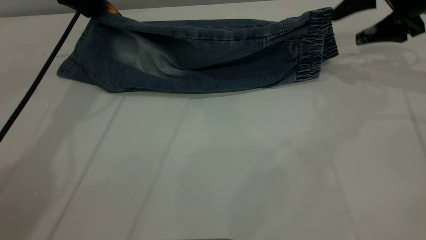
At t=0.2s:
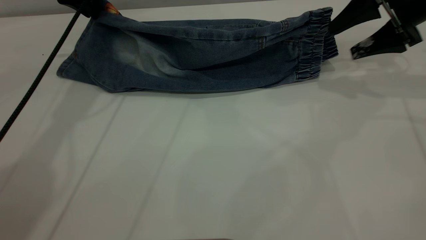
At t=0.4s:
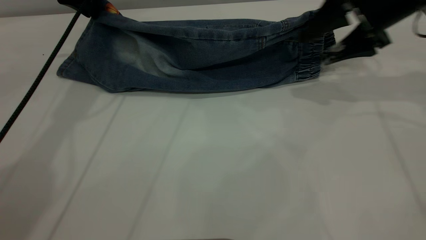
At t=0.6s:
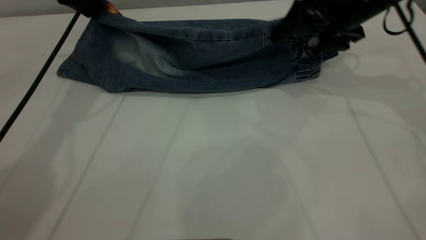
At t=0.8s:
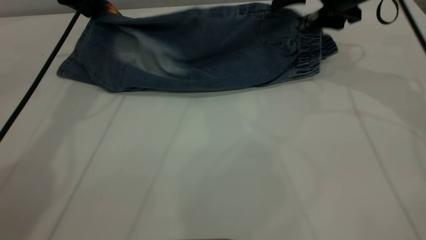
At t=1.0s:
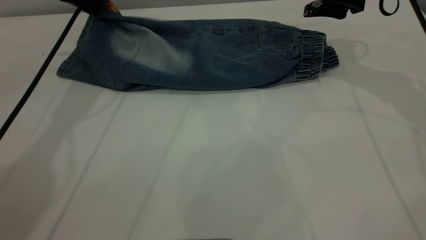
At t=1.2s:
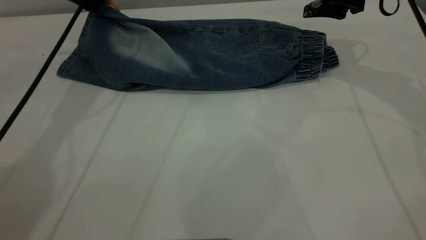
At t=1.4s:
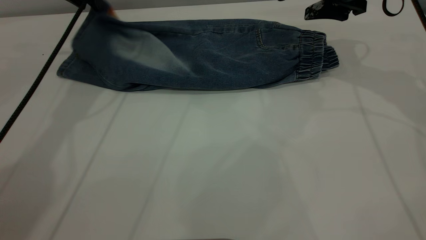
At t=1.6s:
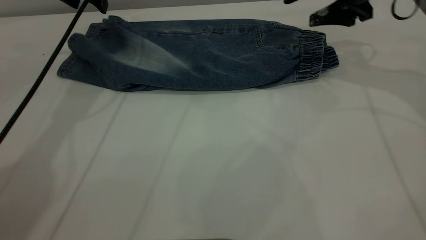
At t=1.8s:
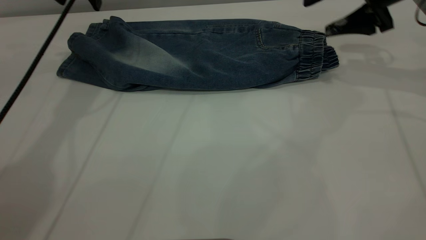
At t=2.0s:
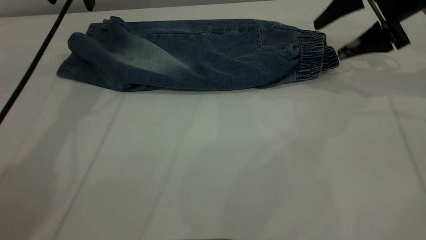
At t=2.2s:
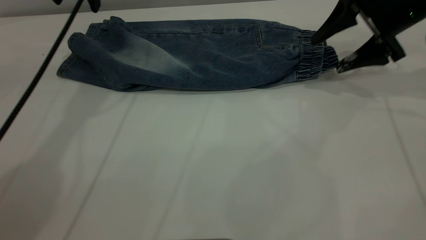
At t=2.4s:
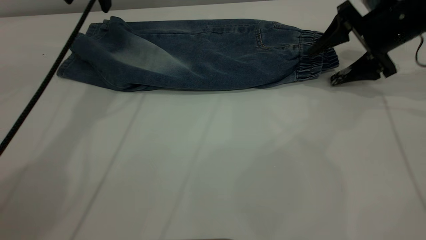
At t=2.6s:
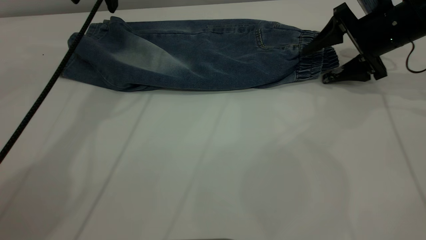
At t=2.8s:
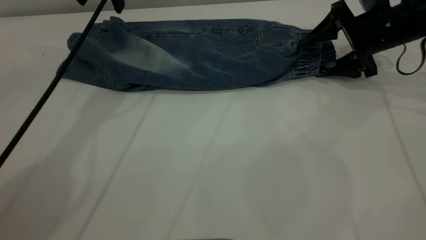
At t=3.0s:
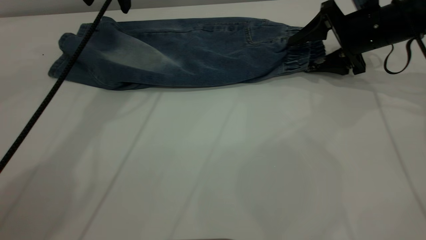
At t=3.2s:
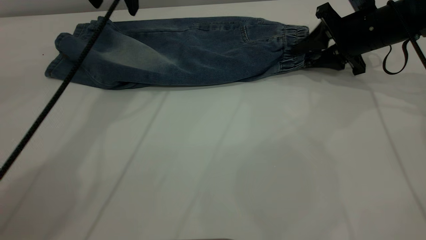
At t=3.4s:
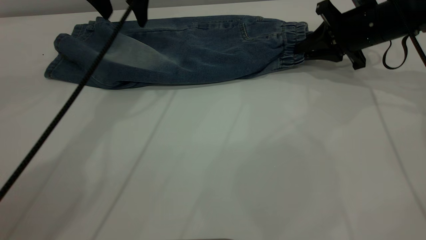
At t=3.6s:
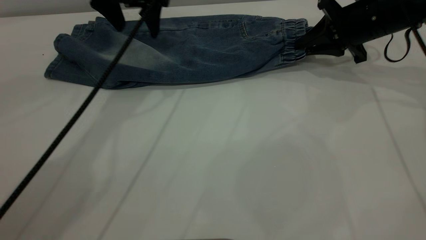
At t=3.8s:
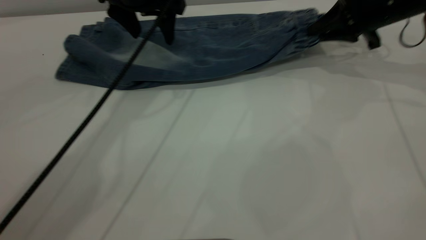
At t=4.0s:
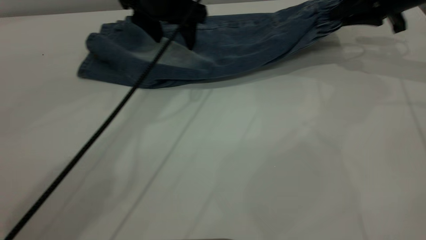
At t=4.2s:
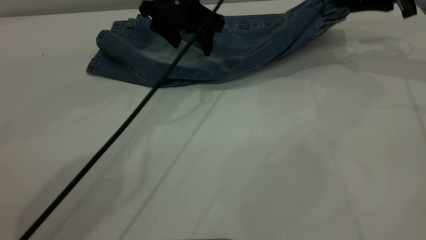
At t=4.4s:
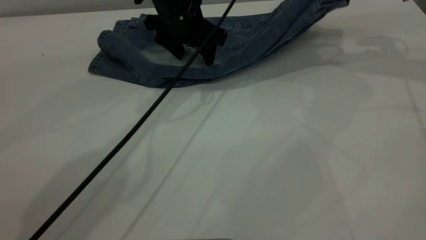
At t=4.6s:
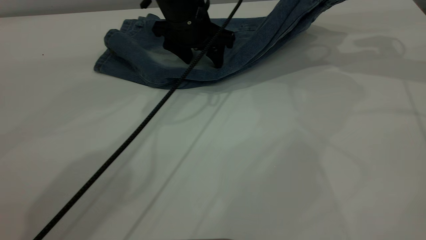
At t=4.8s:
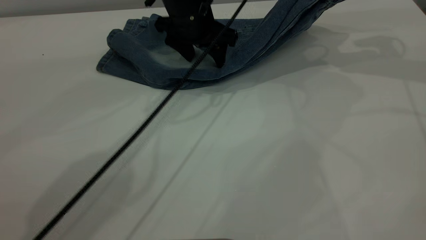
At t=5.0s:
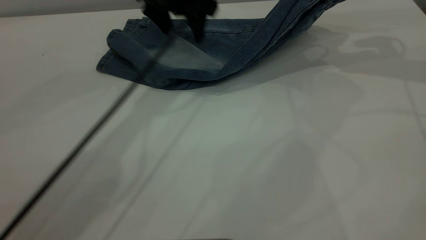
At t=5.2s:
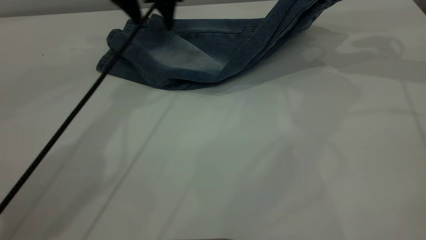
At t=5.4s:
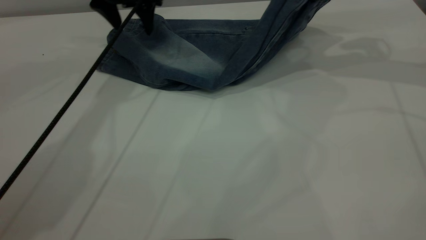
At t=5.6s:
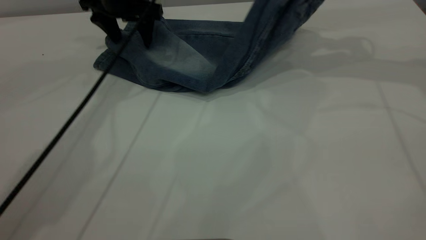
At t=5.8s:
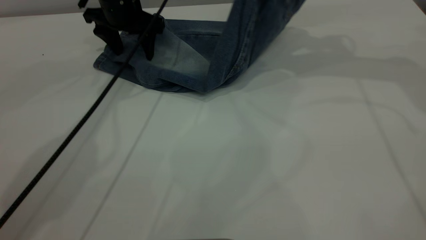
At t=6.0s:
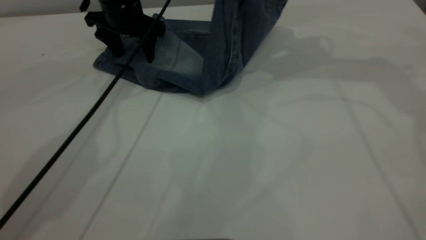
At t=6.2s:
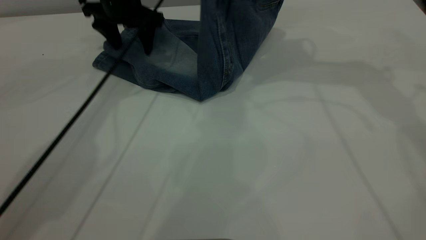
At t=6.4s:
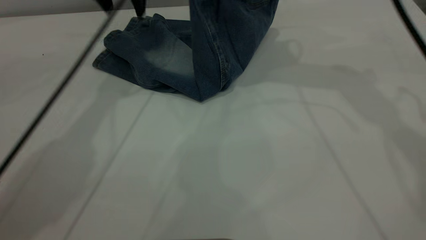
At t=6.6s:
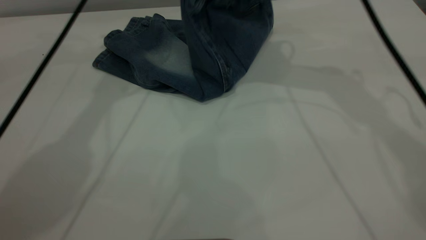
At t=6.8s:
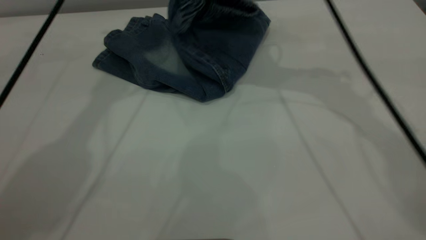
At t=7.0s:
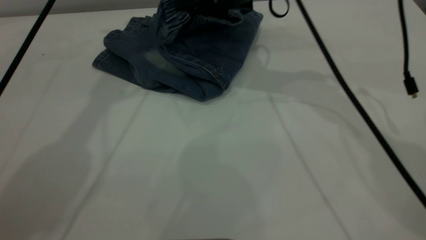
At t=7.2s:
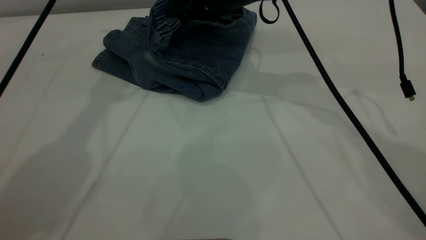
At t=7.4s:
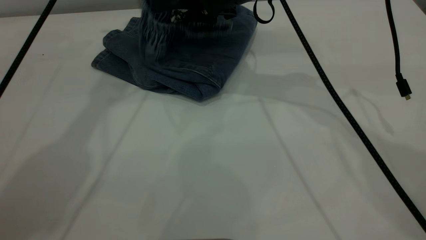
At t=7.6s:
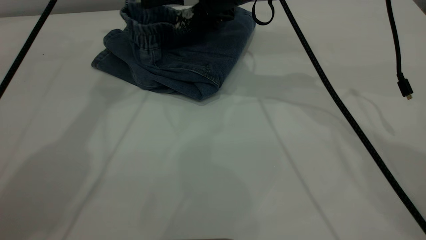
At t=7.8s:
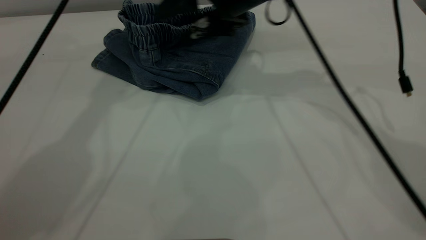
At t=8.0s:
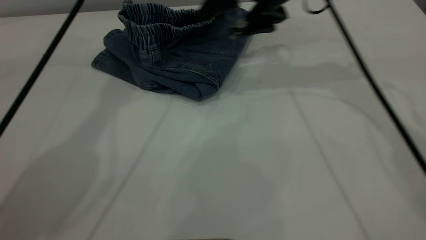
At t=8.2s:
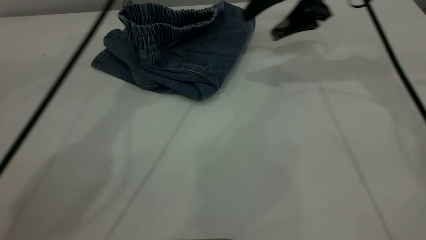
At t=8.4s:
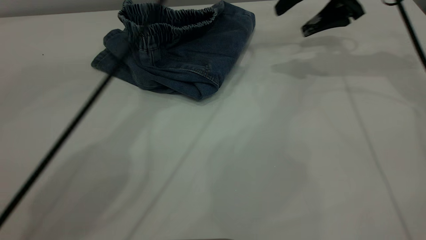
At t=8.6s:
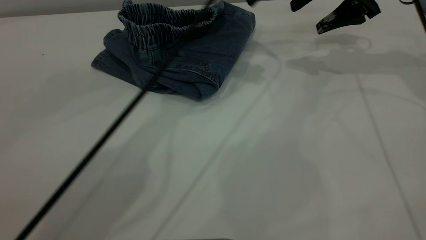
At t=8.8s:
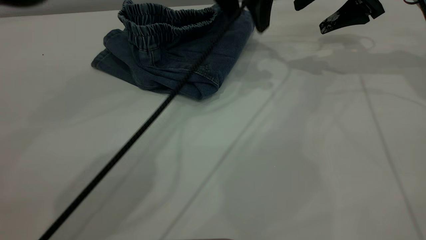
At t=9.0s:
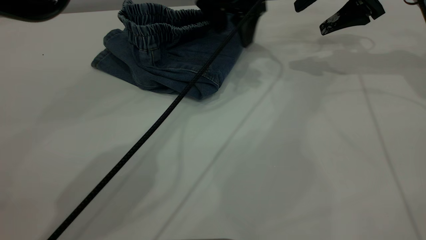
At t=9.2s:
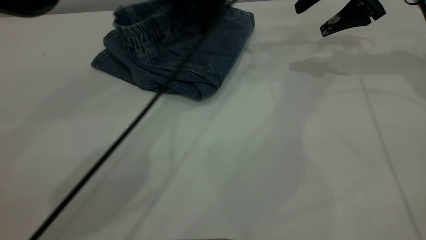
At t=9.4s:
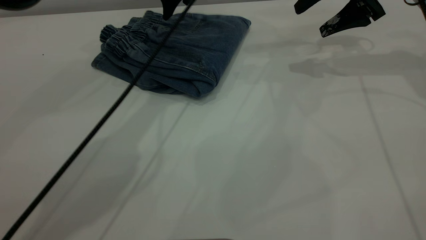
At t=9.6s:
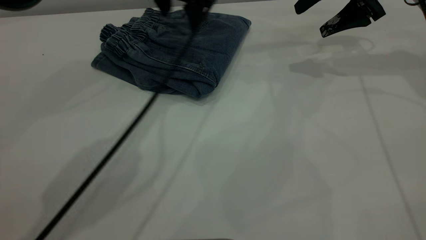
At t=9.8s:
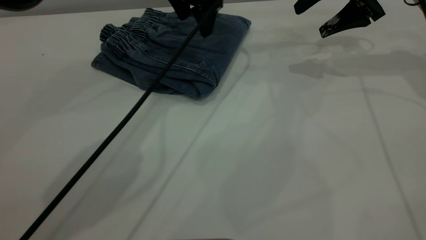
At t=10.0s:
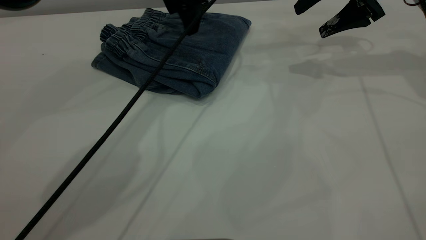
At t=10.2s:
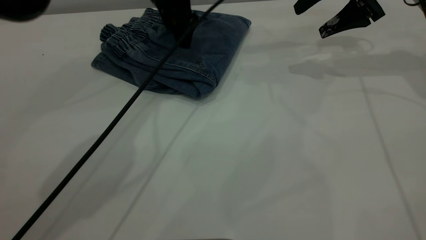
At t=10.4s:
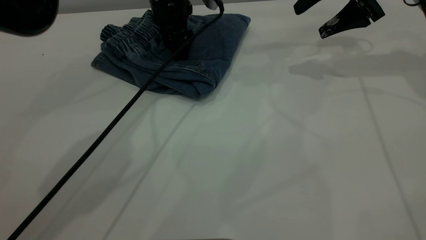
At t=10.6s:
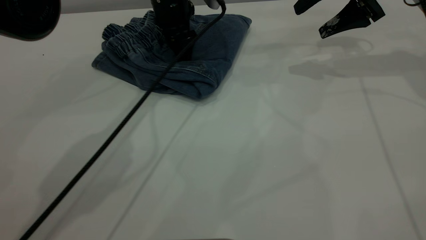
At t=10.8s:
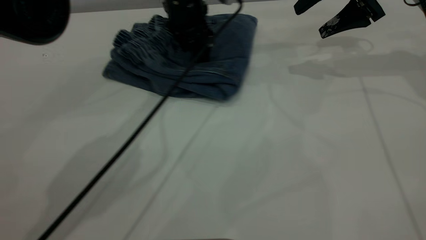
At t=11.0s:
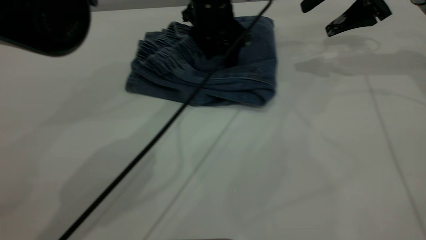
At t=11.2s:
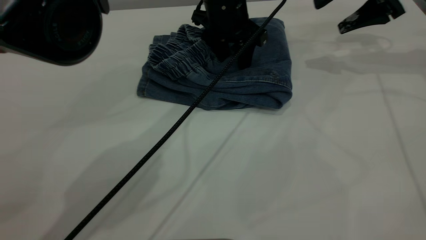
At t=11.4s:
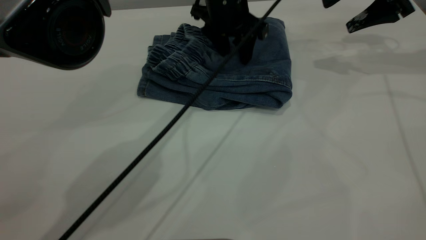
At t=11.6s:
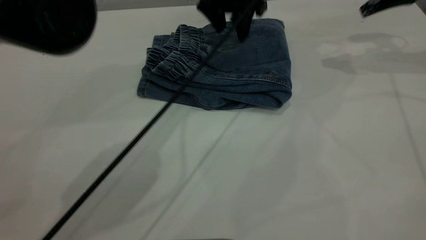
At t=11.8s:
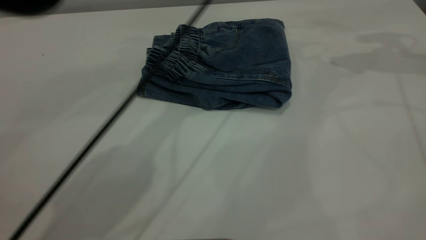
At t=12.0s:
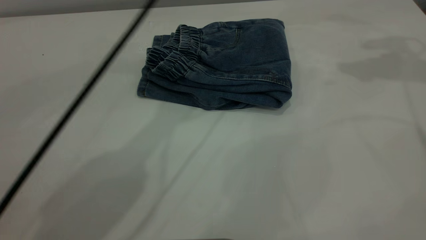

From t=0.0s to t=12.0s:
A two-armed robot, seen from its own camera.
Step, from t=1.6s to t=7.8s: Fold your pants from right to left.
From t=0.0s to t=1.6s: The left gripper opens up. Meanwhile the right gripper heads to the left, covering approximately 5 cm.
From t=1.6s to t=3.0s: The right gripper moves downward, about 10 cm; the left gripper travels to the right by approximately 5 cm.
From t=3.0s to t=4.4s: The left gripper goes approximately 15 cm downward and to the right. The right gripper shifts roughly 15 cm upward and to the right, and closes its fingers.
From t=4.4s to t=6.0s: The right gripper shifts about 15 cm to the left and upward. Meanwhile the left gripper is displaced to the left and forward by about 10 cm.
From t=6.0s to t=7.6s: The right gripper moves to the left and downward, some 15 cm, and opens its fingers. Meanwhile the left gripper moves upward, some 20 cm.
From t=7.6s to t=9.0s: The left gripper shifts roughly 20 cm to the right and downward; the right gripper shifts some 20 cm to the right.
From t=9.0s to t=10.4s: The left gripper goes about 10 cm to the left and downward.
From t=10.4s to t=12.0s: Both grippers move upward, approximately 20 cm.

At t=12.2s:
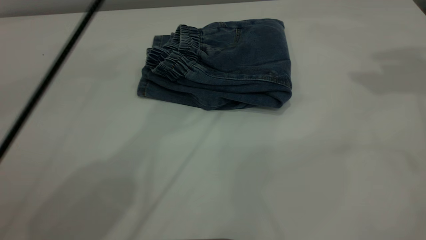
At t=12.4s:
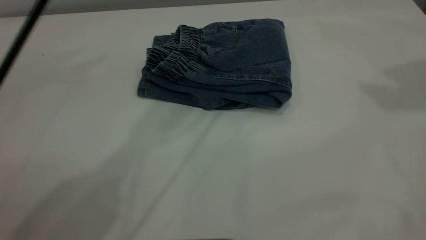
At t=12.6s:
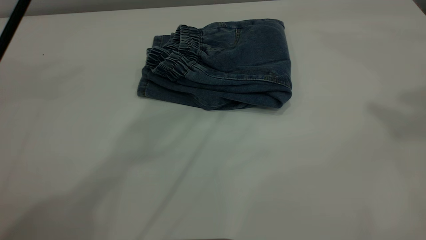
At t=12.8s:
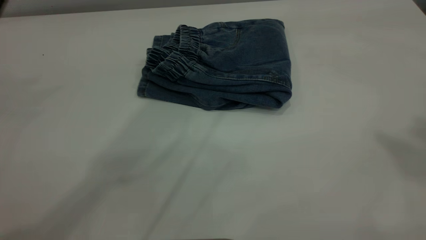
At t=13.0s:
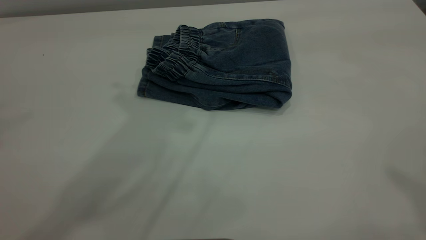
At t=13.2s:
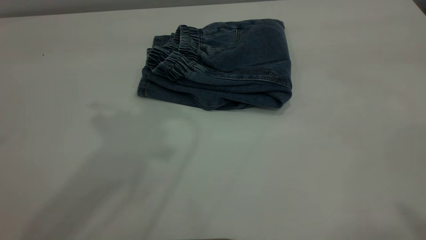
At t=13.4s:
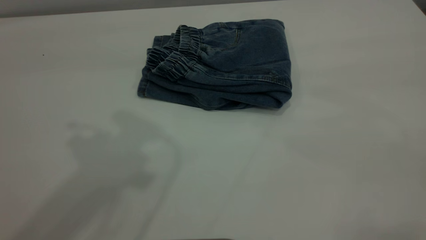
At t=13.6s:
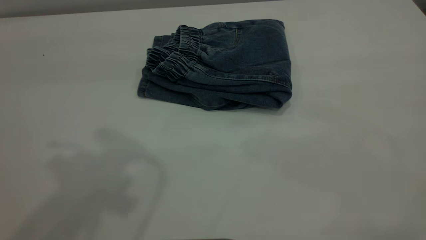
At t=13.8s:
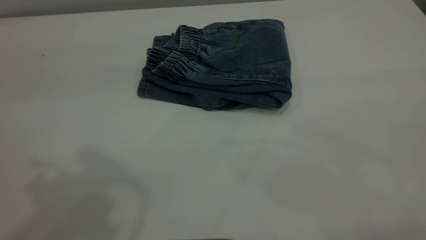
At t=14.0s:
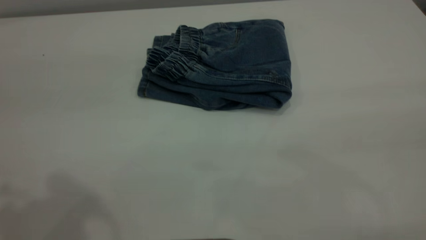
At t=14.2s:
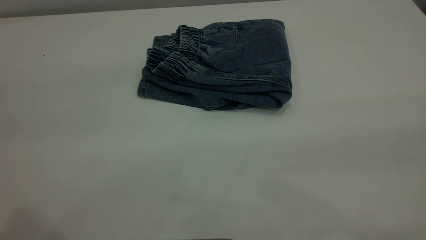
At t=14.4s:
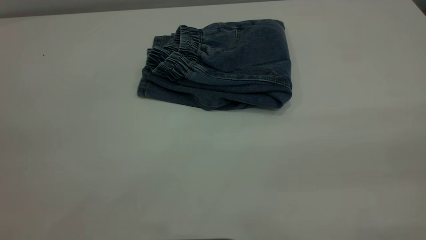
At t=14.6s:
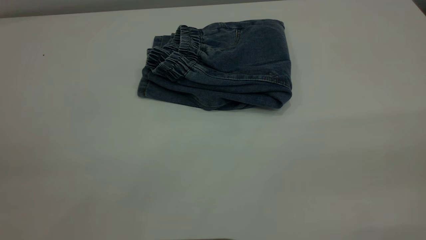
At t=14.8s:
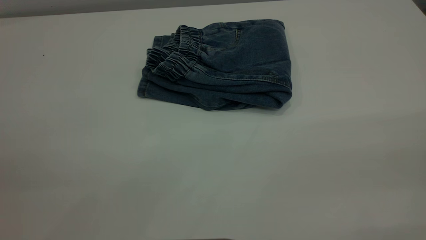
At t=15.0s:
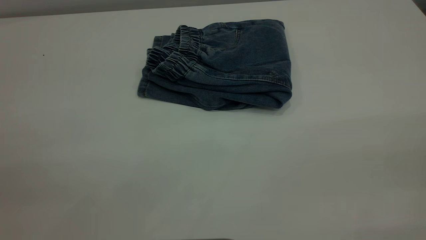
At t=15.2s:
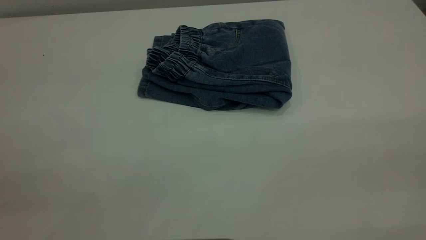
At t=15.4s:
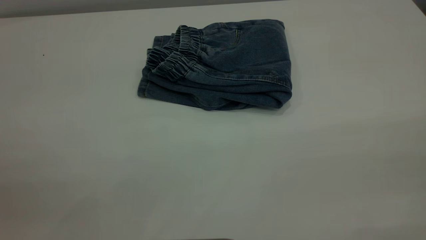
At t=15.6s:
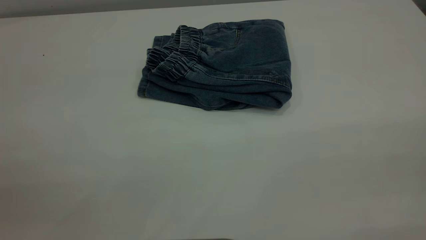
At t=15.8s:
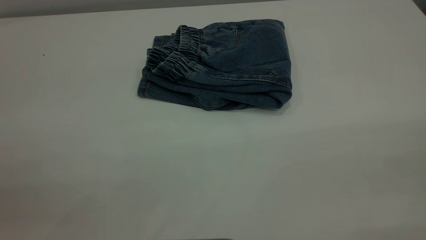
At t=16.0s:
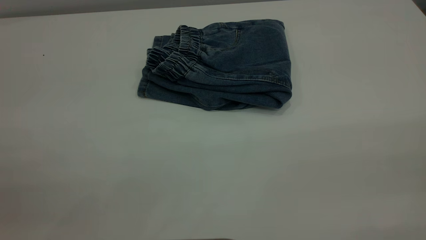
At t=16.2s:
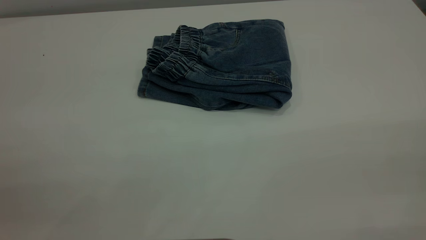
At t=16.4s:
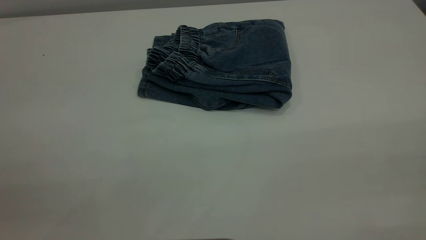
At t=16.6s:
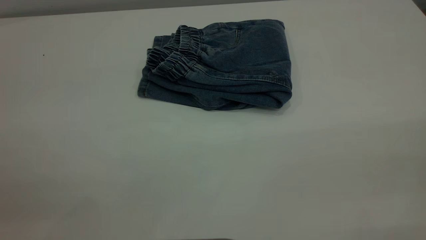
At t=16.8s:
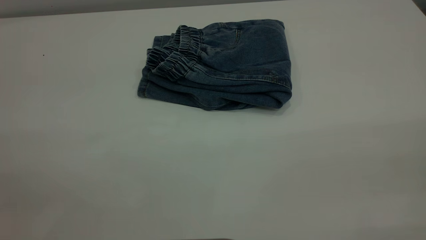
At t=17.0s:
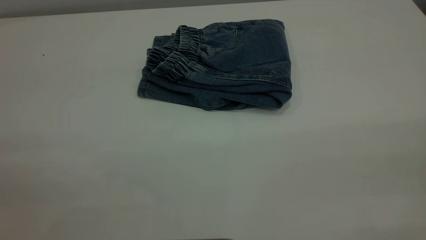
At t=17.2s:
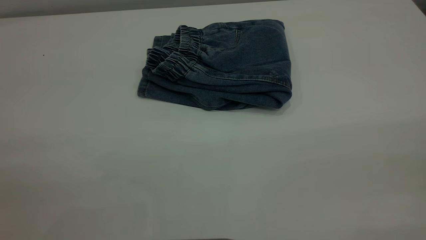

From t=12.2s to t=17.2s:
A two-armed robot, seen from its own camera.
From t=12.2s to t=13.8s: The left gripper goes about 30 cm backward and to the left.
